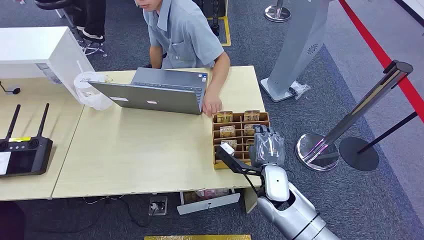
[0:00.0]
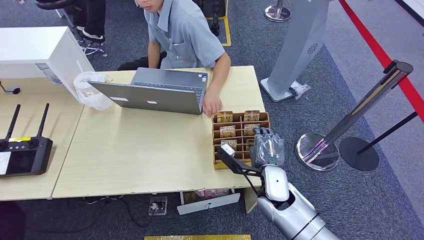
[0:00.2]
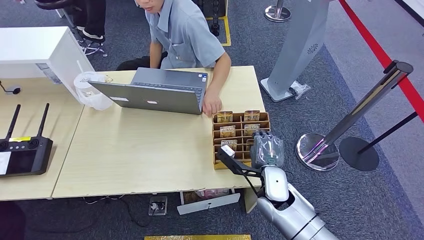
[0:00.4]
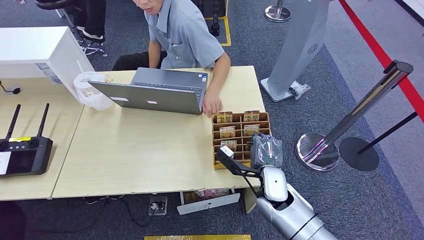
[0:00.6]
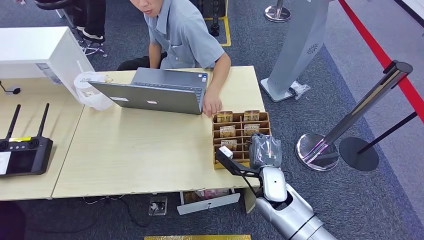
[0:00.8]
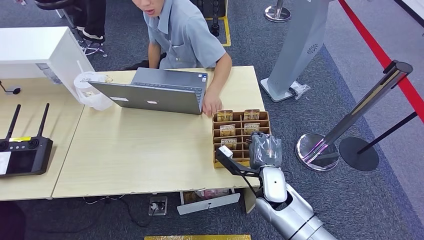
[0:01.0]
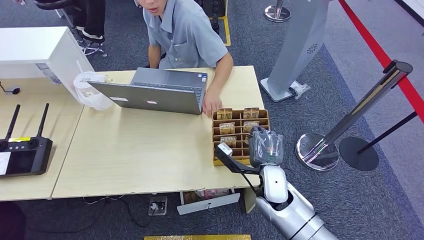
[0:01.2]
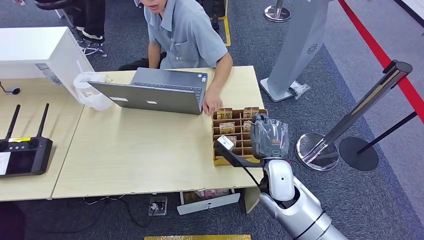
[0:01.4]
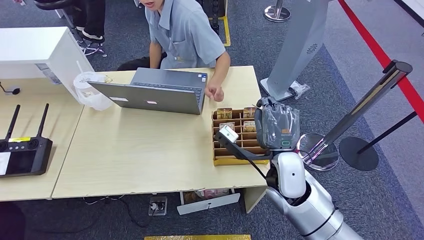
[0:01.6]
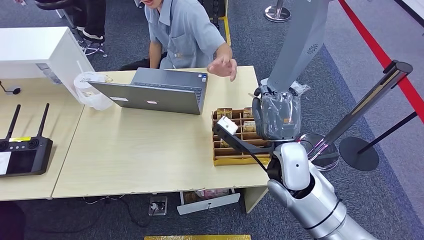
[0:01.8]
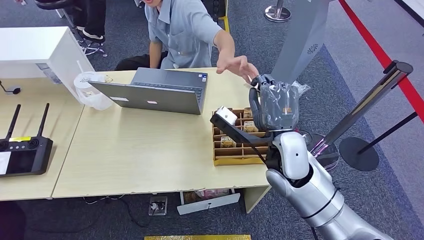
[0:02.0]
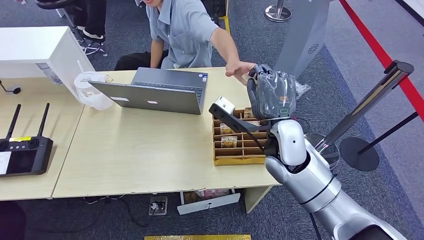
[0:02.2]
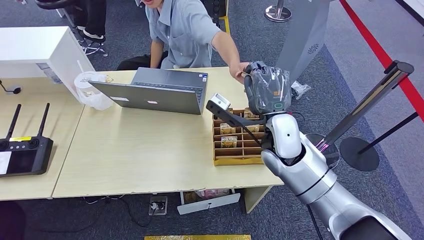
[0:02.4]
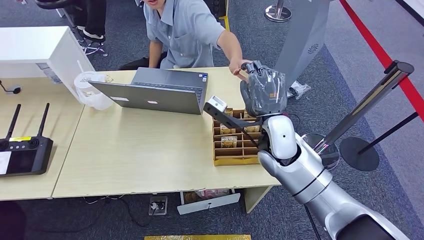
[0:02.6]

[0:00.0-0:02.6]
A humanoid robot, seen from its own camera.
Step, 0:00.0 to 0:01.0: Pick up the room card from the card holder.
Step, 0:01.8 to 0:02.6: Hand the room card to the target.
0:01.2 to 0:02.6: The right hand moves upward and forward, some 15 cm.

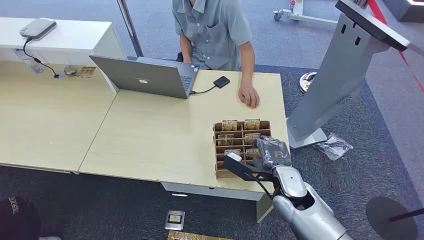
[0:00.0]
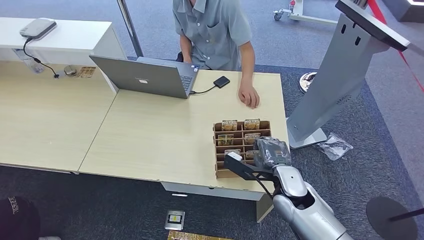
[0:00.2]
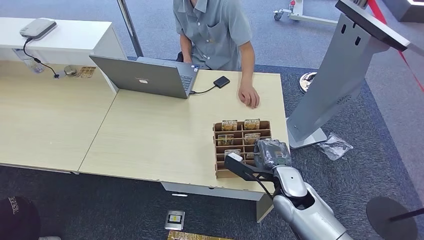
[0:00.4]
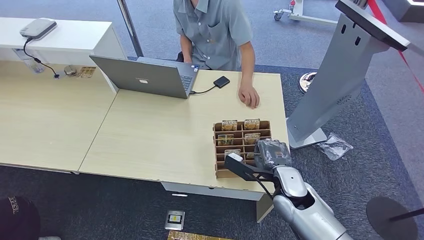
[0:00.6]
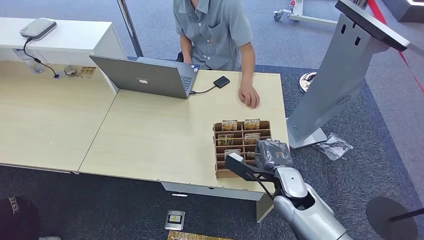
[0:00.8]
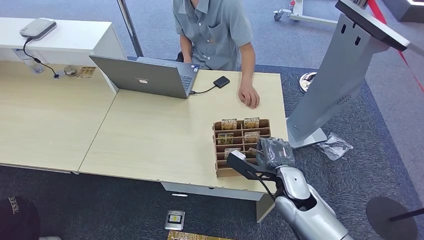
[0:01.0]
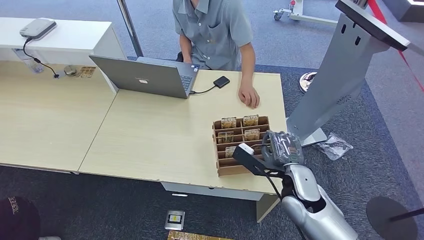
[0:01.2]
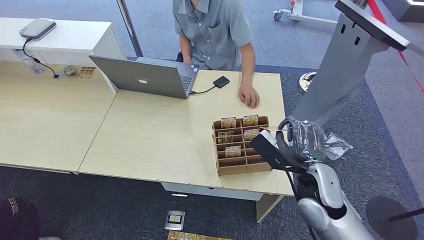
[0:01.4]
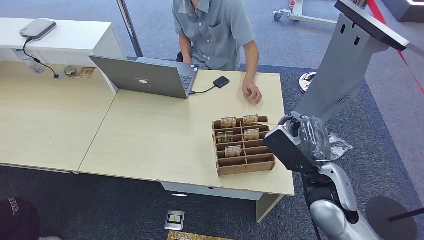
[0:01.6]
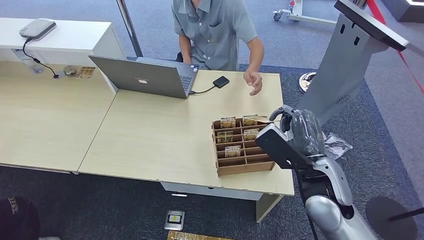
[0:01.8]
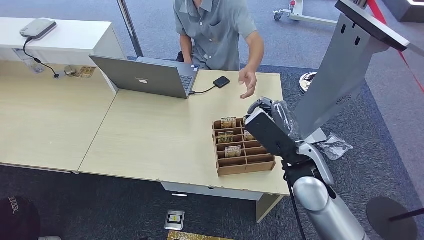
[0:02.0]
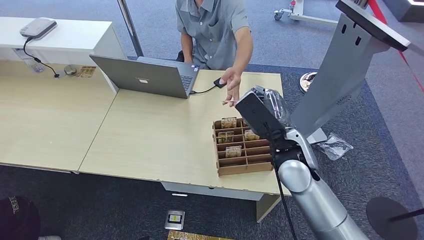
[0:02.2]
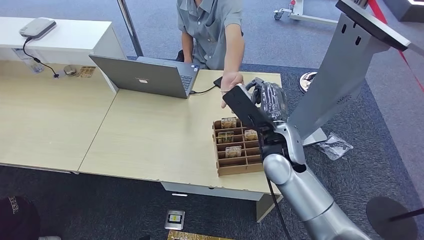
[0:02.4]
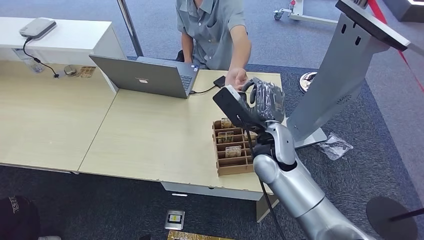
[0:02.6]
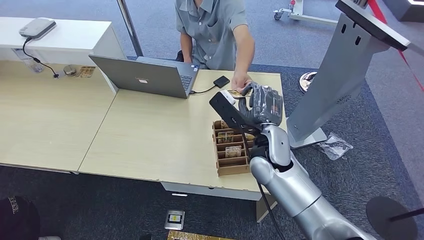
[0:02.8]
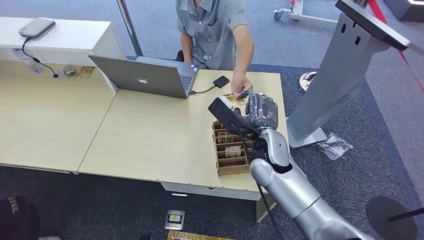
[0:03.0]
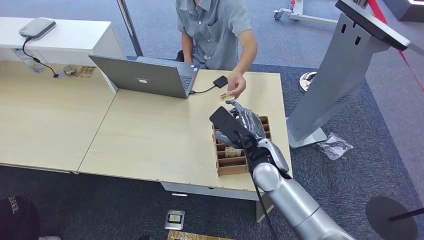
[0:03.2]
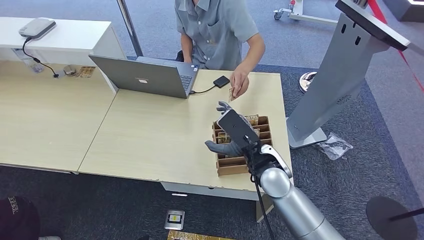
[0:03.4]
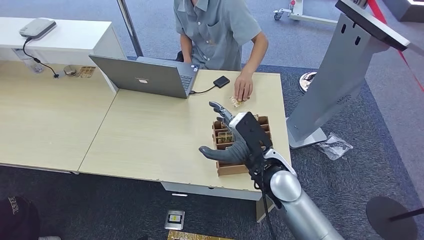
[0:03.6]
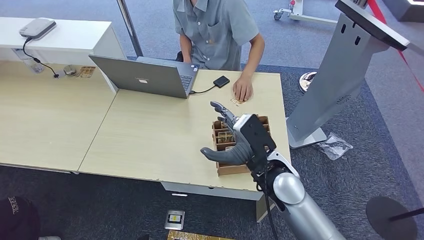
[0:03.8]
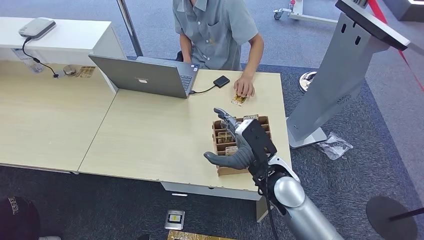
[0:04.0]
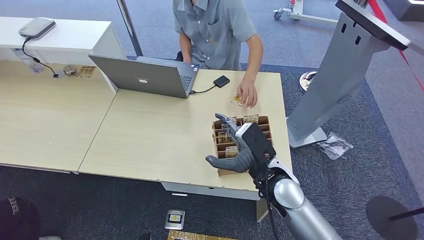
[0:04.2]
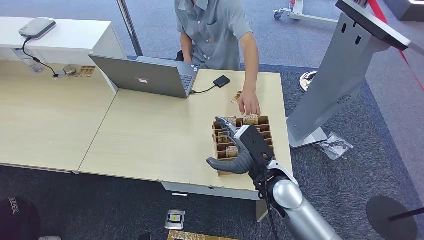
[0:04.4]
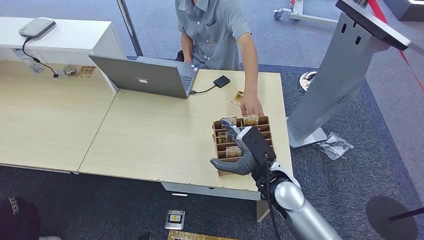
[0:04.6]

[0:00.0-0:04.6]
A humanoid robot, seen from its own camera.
Step, 0:00.0 to 0:01.6: Pick up the room card from the card holder.
Step, 0:02.0 to 0:04.6: Hand the room card to the target.
0:01.6 to 0:03.0: The right hand travels to the left by about 5 cm.
0:03.0 to 0:04.6: The right hand is displaced downward and backward by roughly 10 cm.
